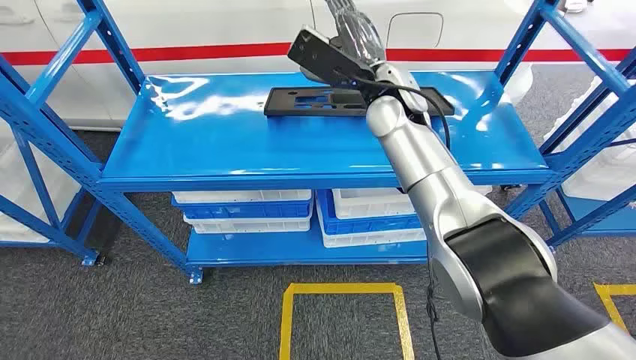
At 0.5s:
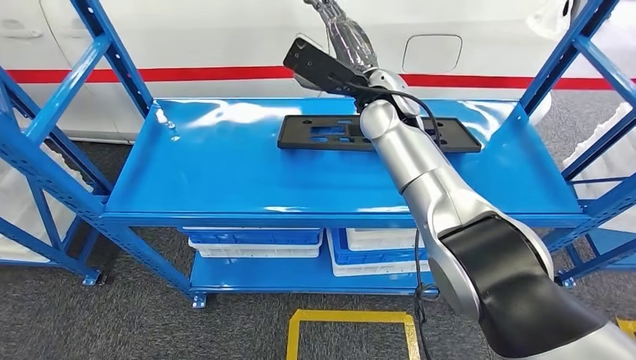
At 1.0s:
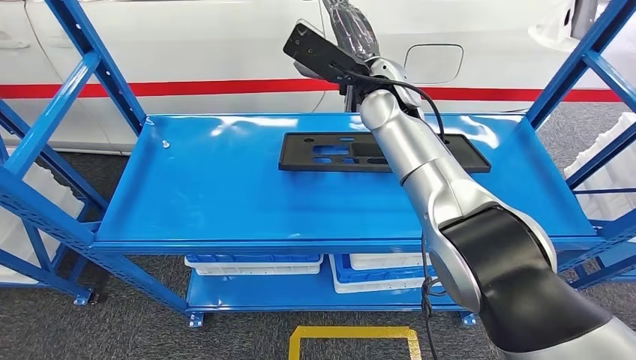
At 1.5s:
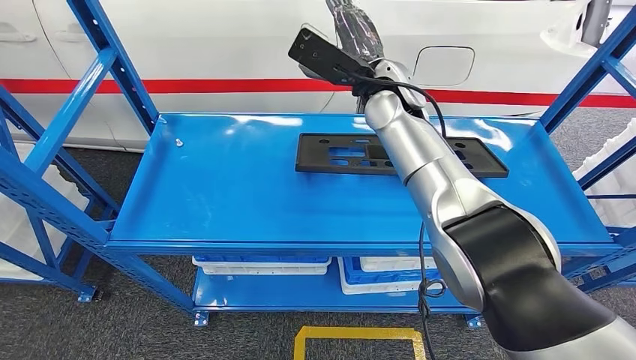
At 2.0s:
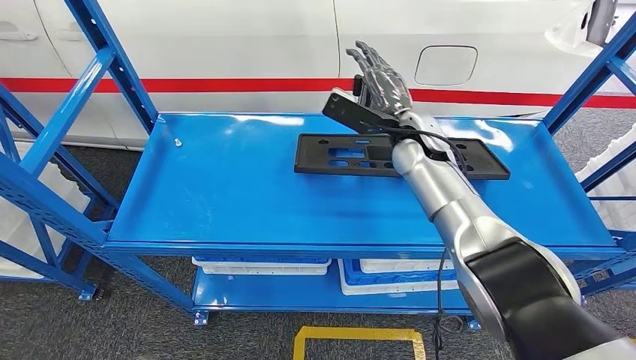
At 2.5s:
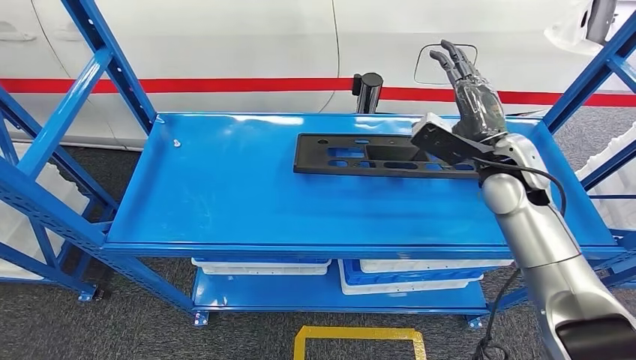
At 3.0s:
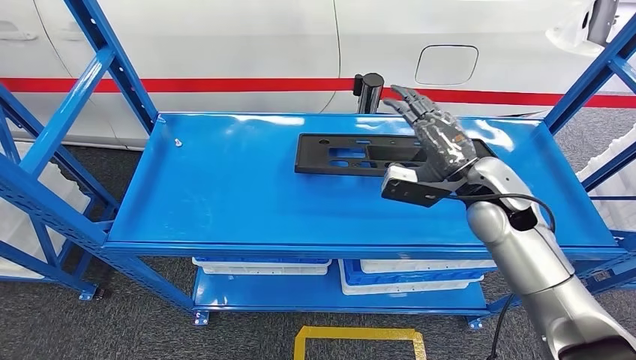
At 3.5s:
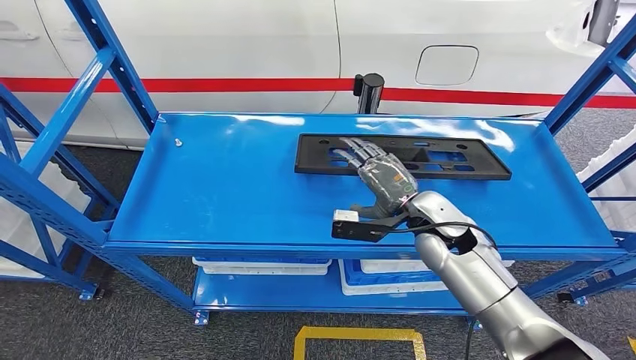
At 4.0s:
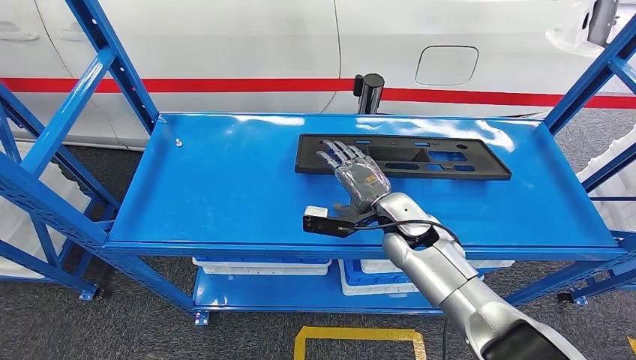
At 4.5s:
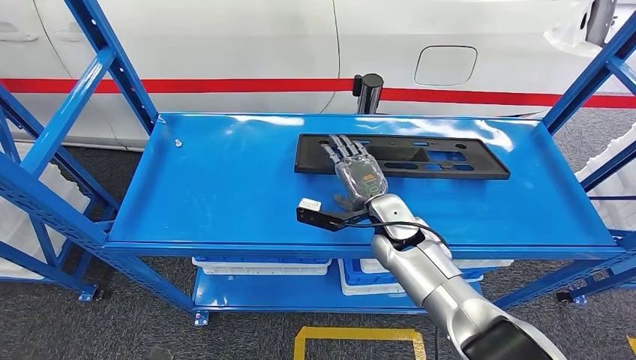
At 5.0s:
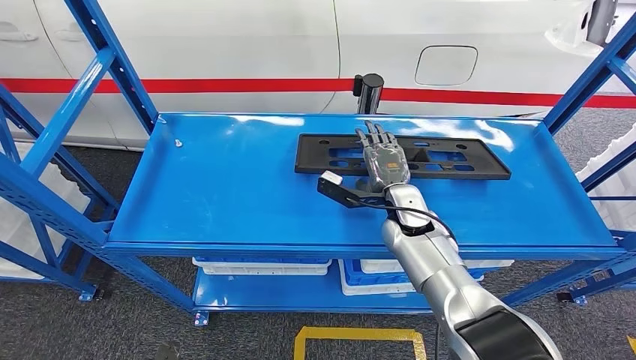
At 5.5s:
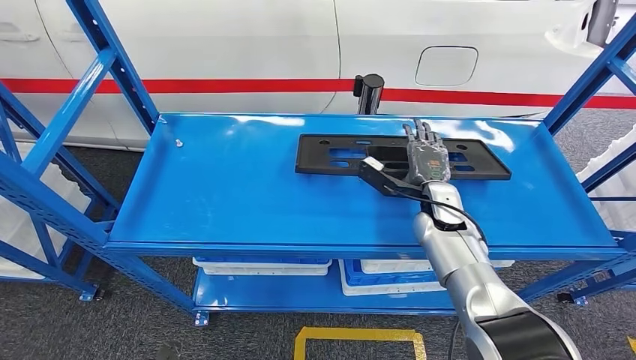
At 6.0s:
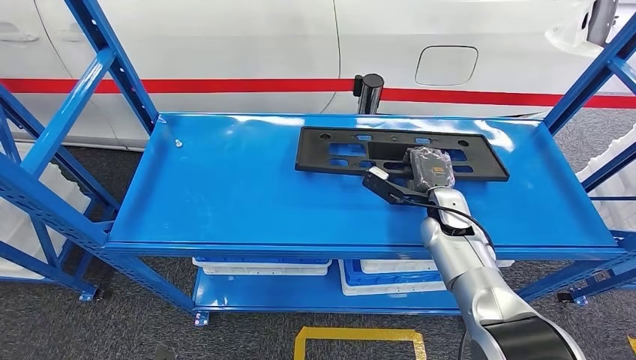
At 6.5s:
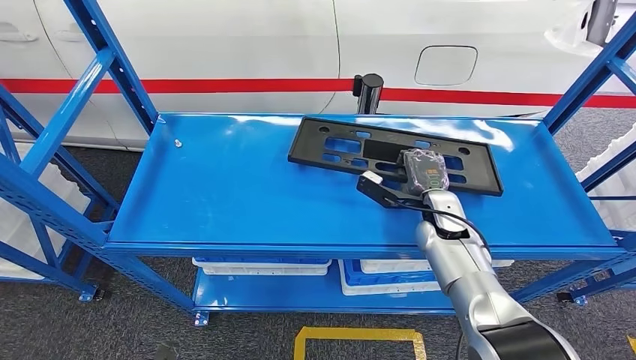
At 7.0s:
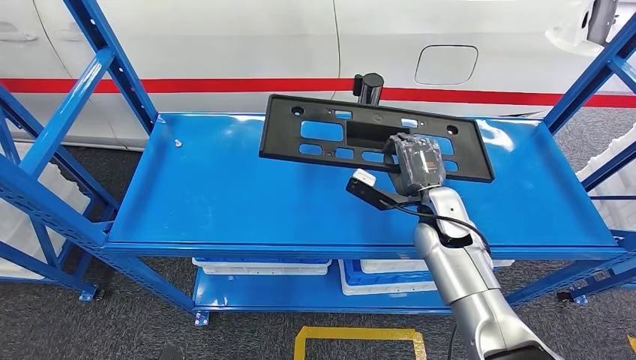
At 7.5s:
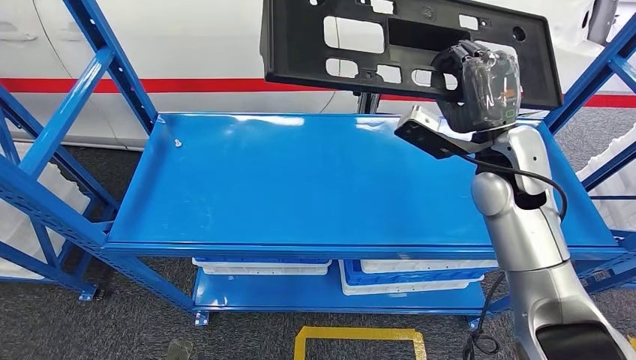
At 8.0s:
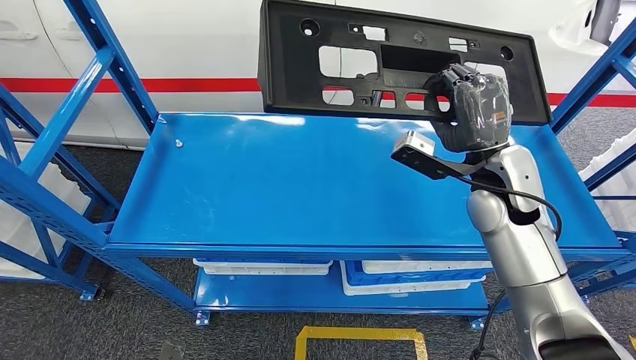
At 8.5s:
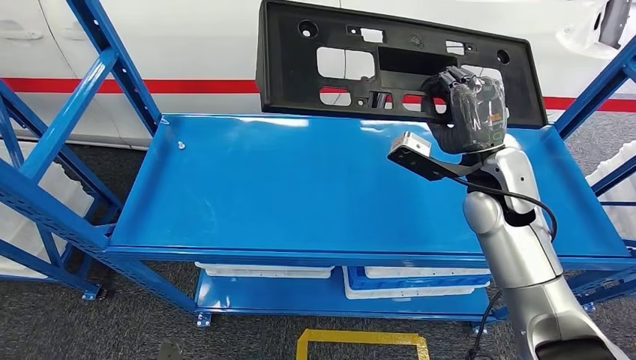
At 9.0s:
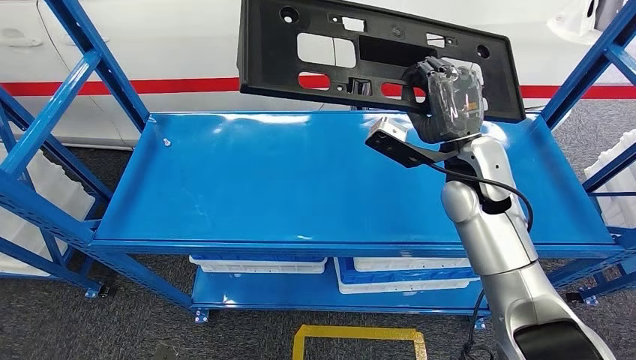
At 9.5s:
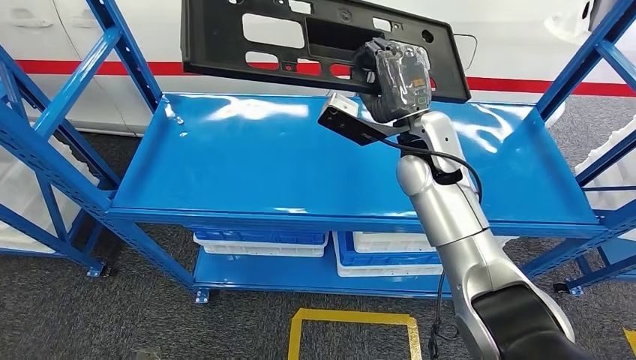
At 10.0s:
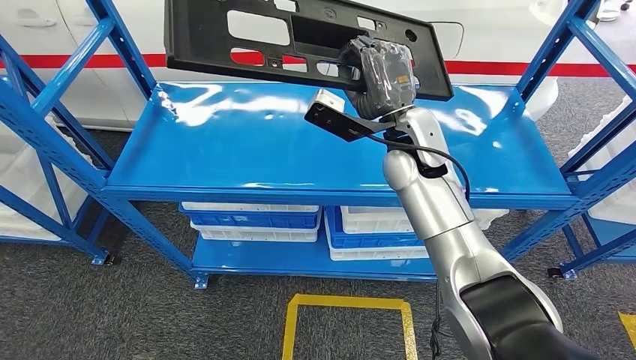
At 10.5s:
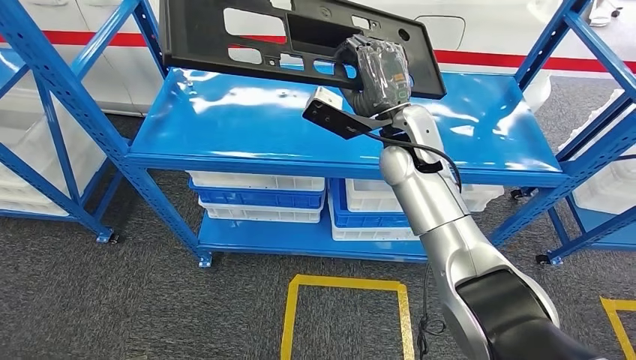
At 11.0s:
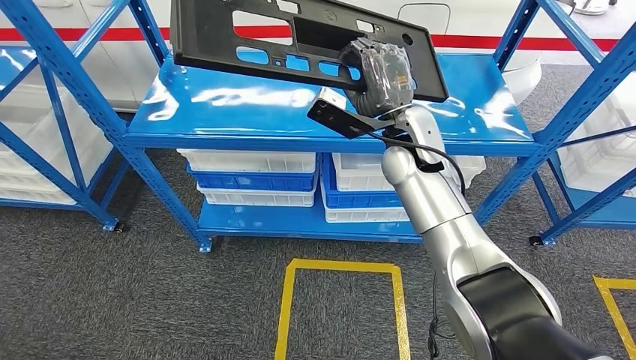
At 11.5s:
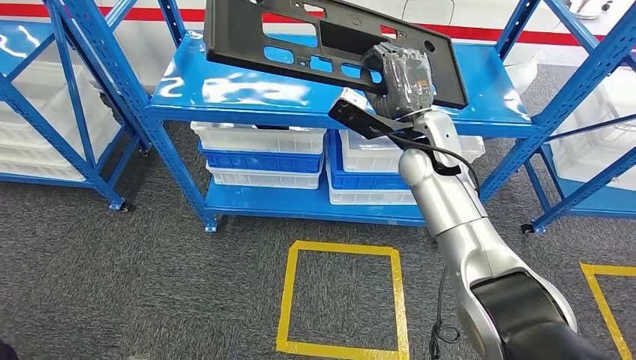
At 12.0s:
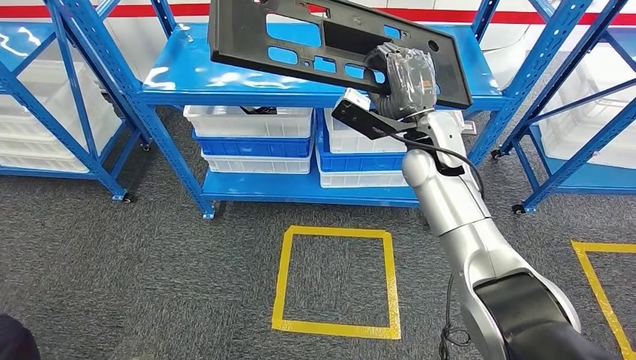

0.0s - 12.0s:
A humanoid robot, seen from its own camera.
Step, 0.0s - 10.5s: Pick up the large material from the shelf.
2.0s - 4.0s: The right hand is displaced downward and backward by roughly 15 cm, and travels to the right and back again, some 10 cm each way.
4.0s - 6.0s: The right hand heads to the right, covering roughly 10 cm.

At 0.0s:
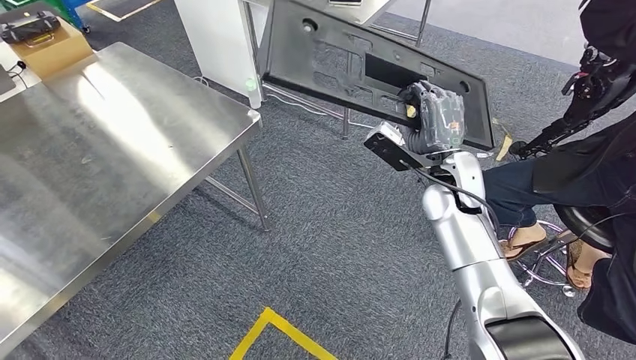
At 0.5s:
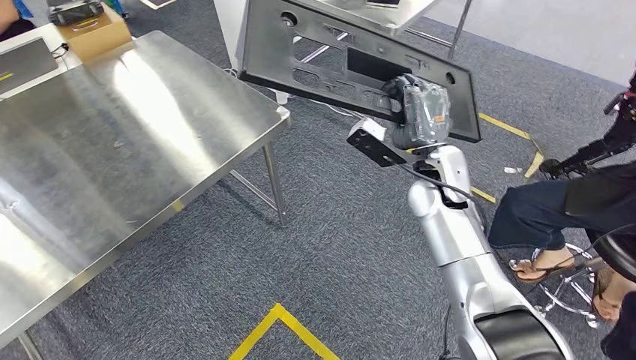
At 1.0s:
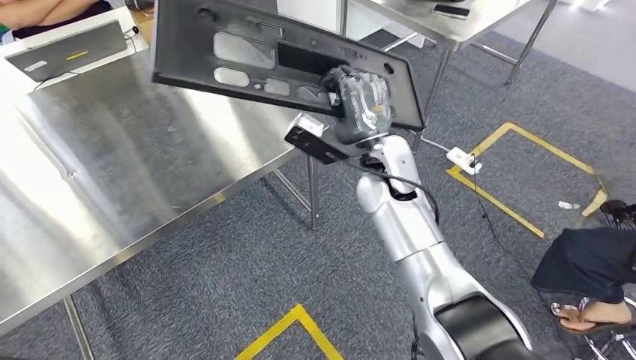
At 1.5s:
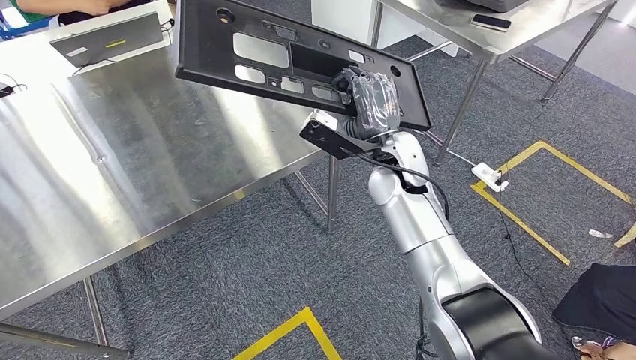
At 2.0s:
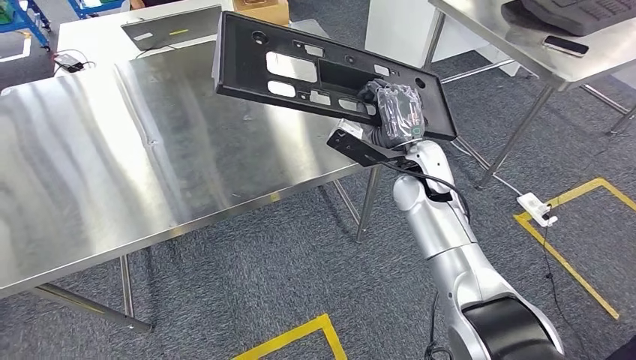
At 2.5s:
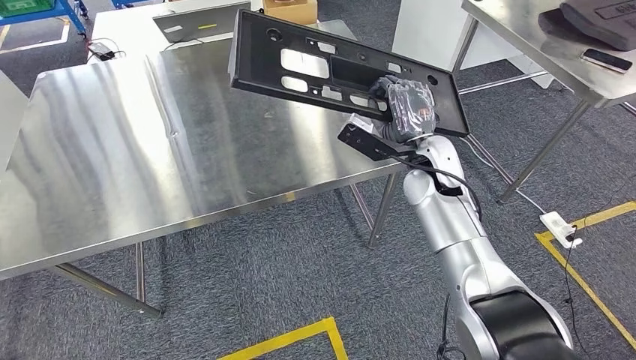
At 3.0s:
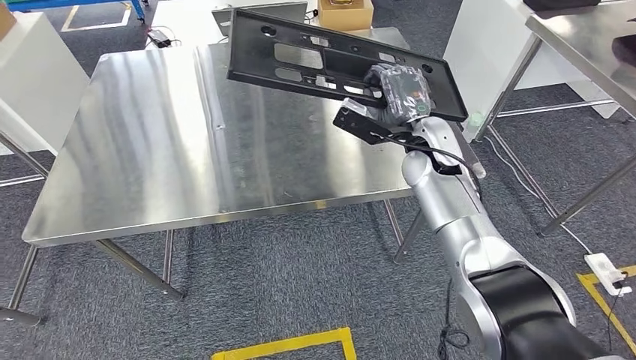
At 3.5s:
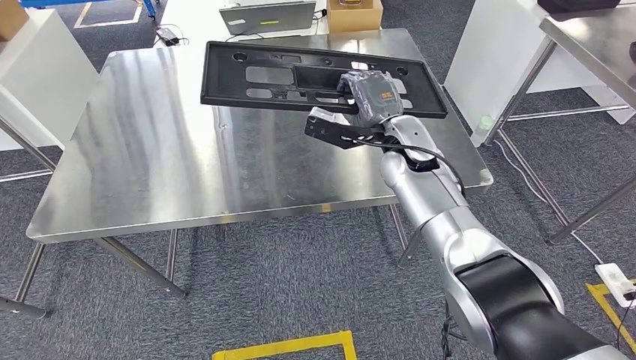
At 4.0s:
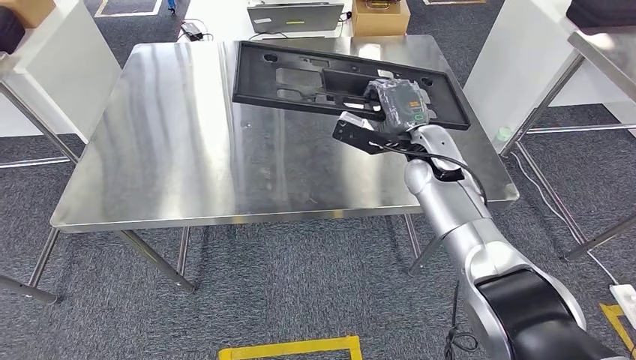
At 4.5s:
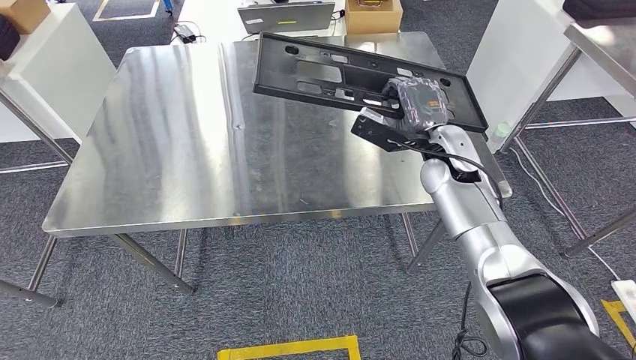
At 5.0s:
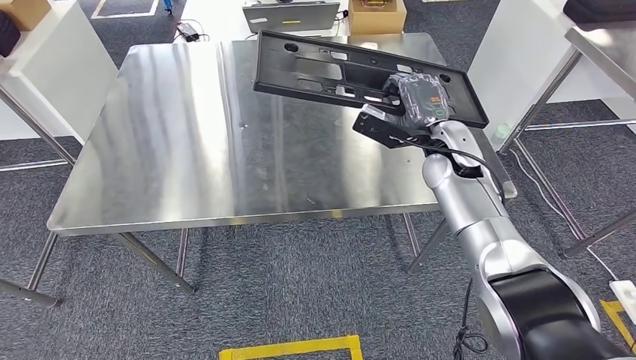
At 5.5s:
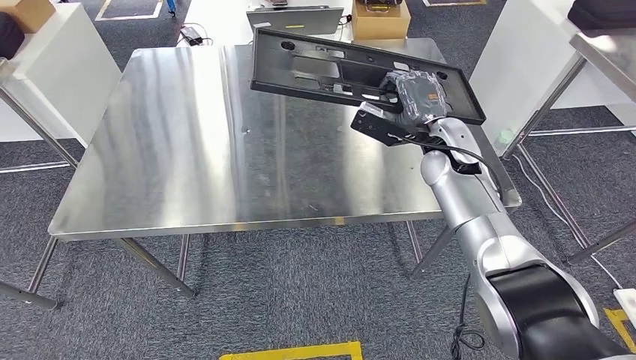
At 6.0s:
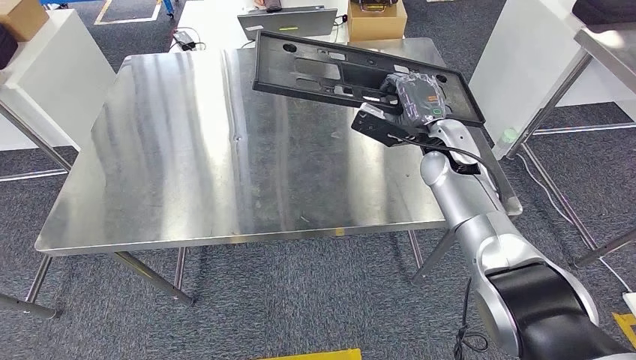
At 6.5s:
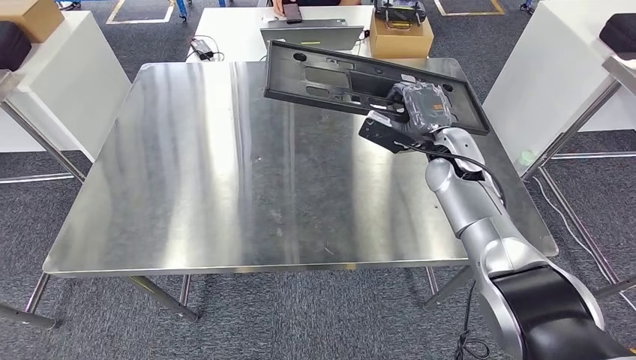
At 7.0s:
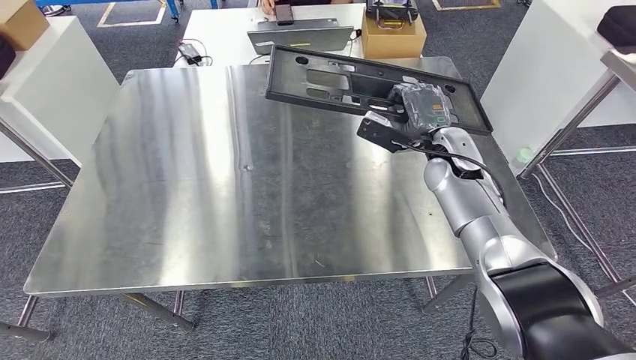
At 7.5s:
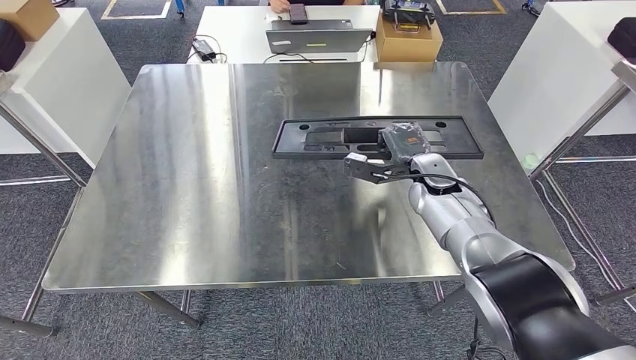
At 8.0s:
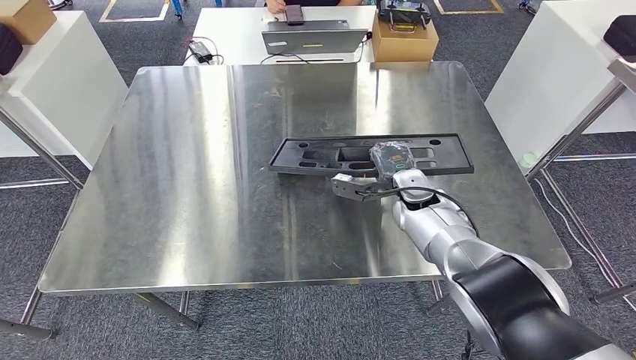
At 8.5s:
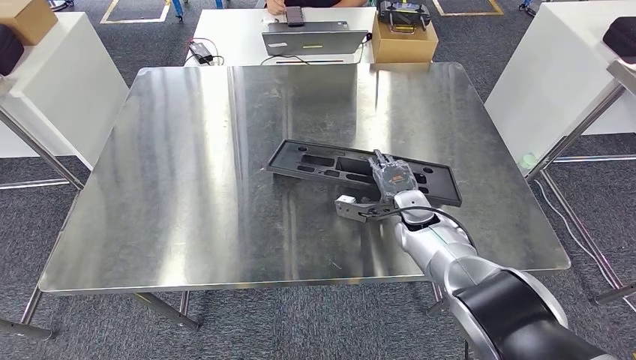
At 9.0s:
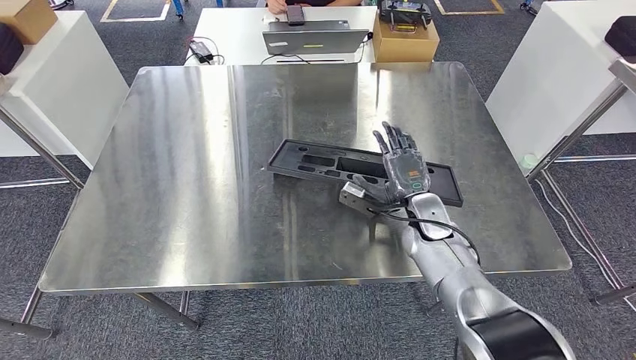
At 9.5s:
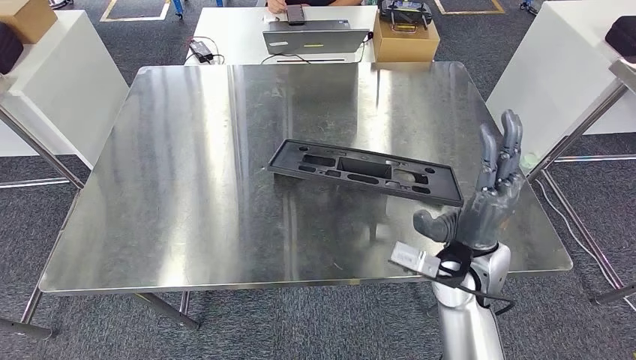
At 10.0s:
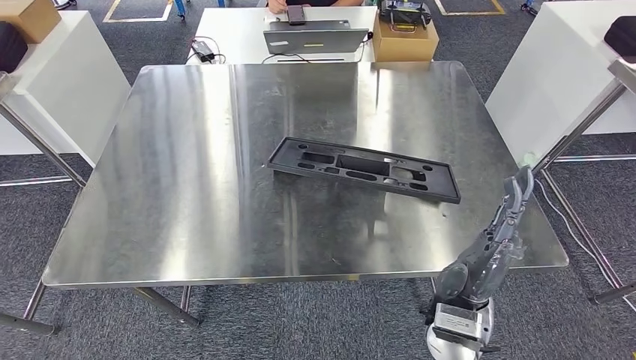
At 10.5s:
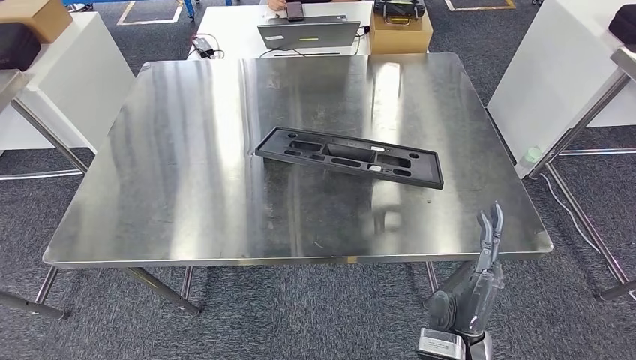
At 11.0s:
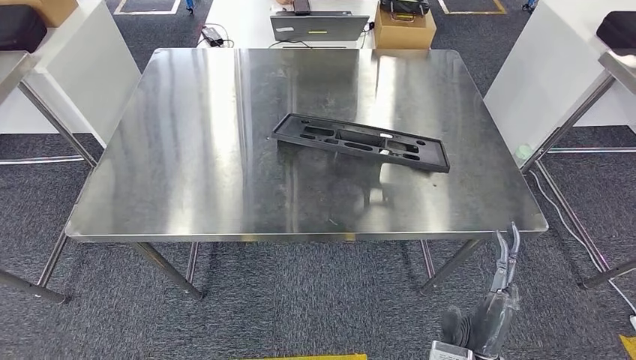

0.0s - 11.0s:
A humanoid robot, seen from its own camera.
Step, 0.0s - 3.0s: Move the large material to the workbench.
7.5s - 9.0s: The right hand goes some 10 cm downward and backward.
